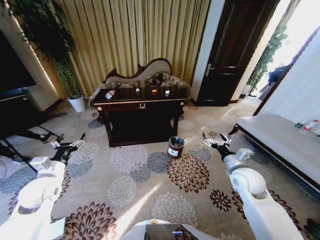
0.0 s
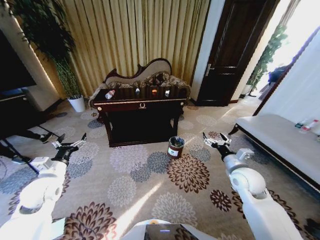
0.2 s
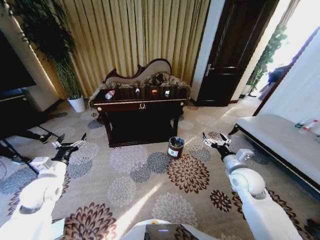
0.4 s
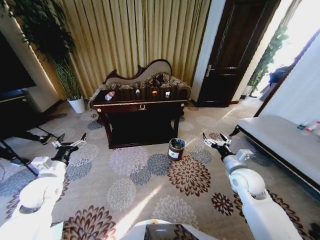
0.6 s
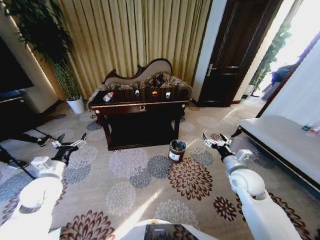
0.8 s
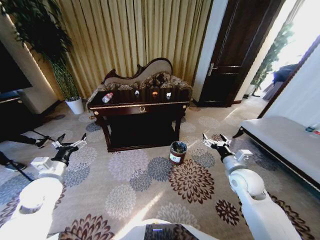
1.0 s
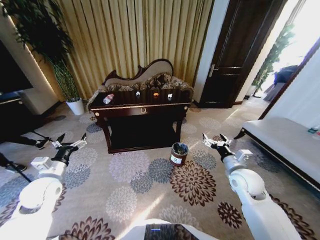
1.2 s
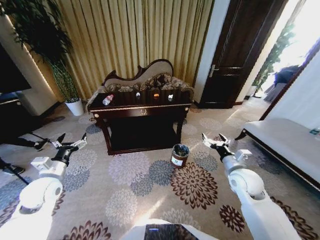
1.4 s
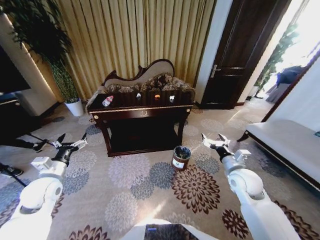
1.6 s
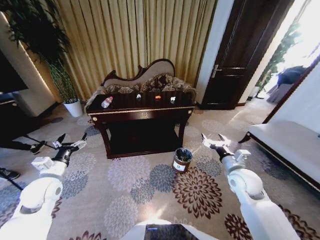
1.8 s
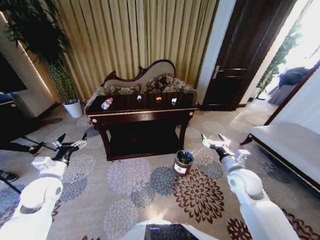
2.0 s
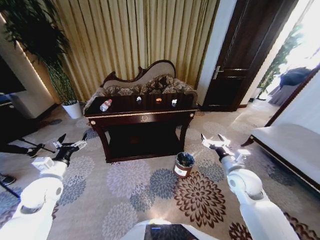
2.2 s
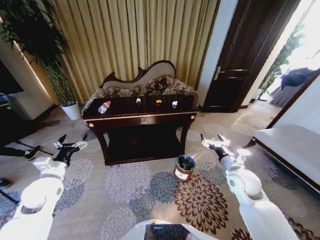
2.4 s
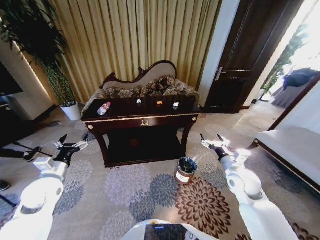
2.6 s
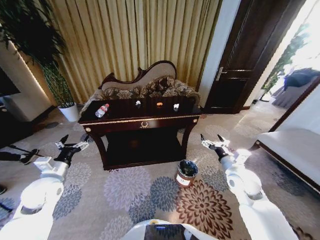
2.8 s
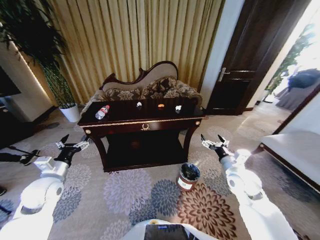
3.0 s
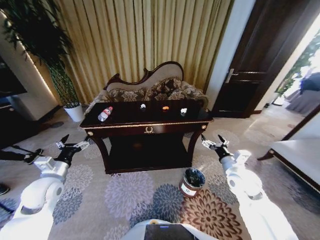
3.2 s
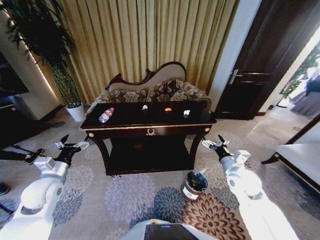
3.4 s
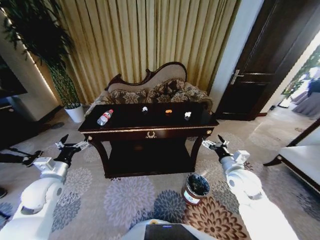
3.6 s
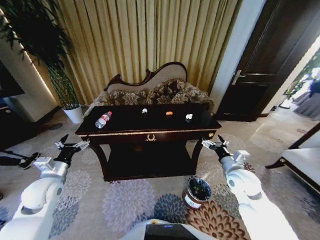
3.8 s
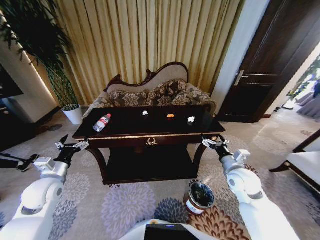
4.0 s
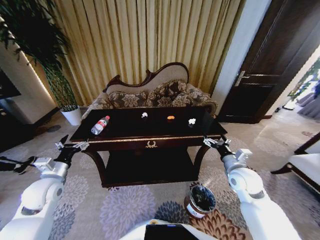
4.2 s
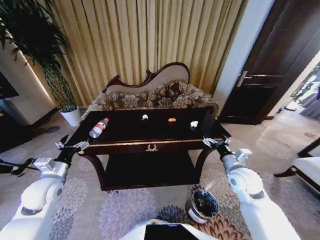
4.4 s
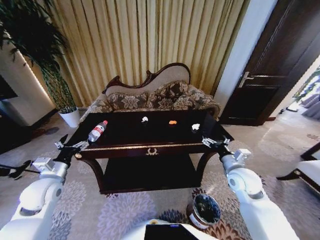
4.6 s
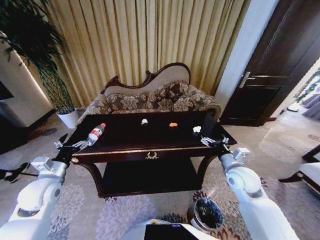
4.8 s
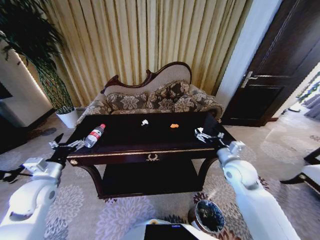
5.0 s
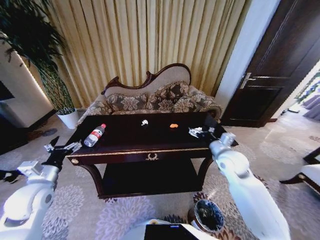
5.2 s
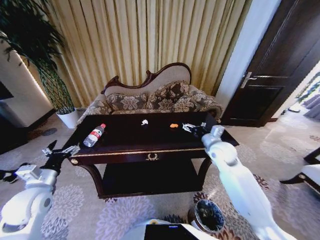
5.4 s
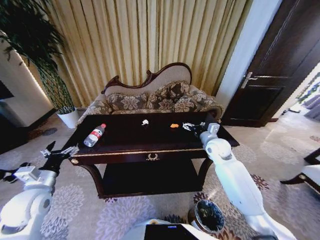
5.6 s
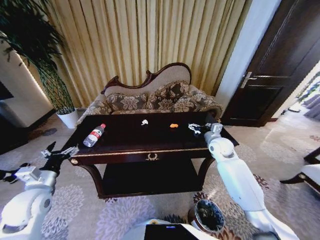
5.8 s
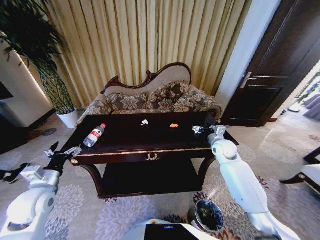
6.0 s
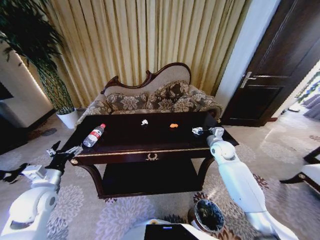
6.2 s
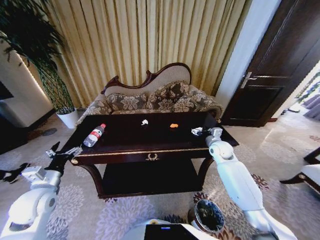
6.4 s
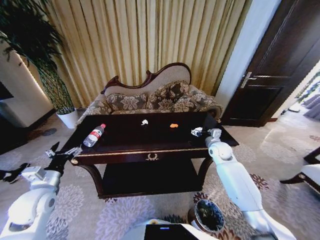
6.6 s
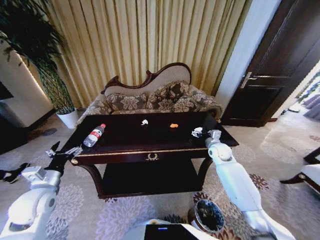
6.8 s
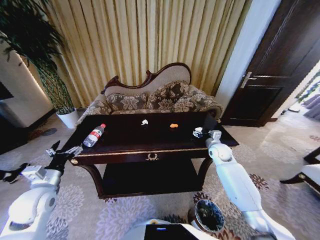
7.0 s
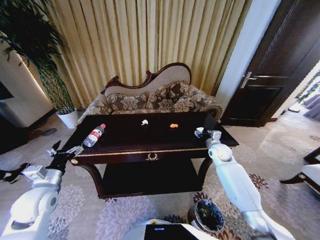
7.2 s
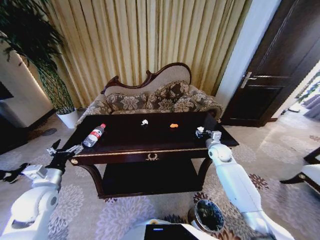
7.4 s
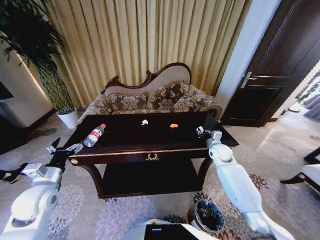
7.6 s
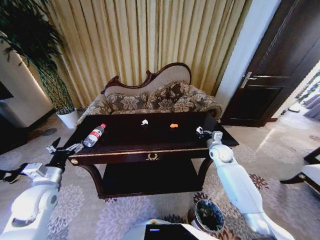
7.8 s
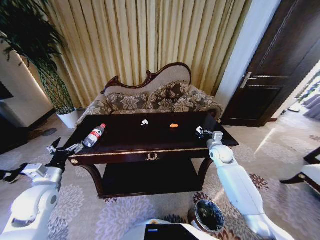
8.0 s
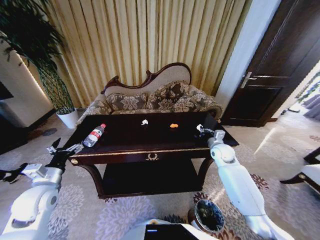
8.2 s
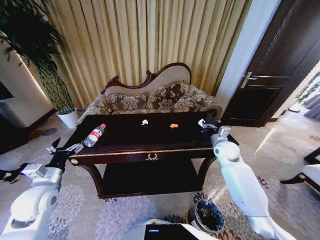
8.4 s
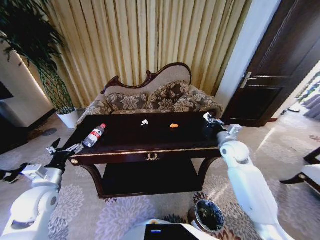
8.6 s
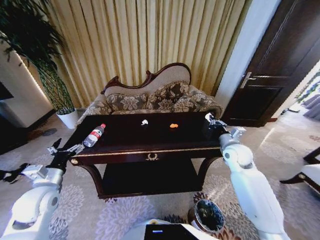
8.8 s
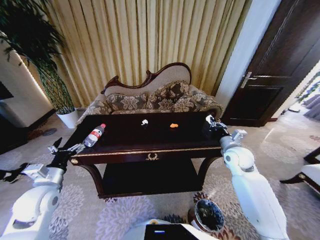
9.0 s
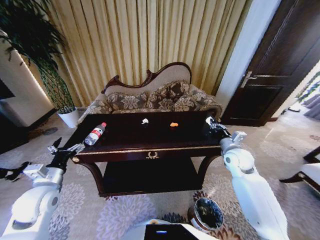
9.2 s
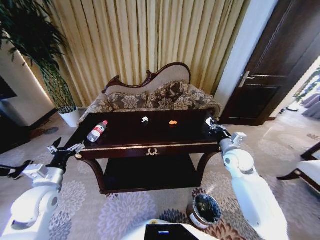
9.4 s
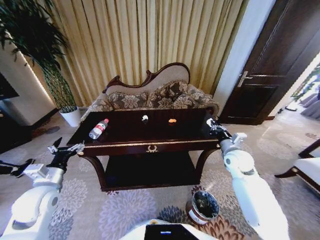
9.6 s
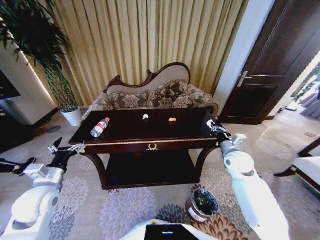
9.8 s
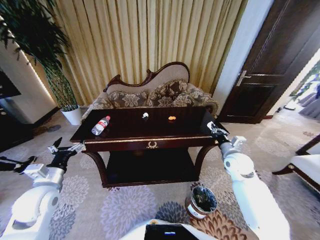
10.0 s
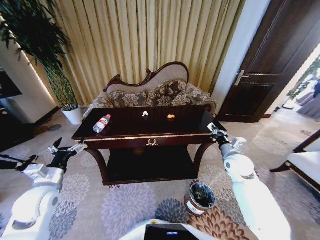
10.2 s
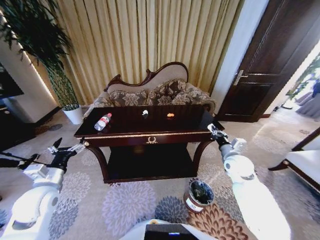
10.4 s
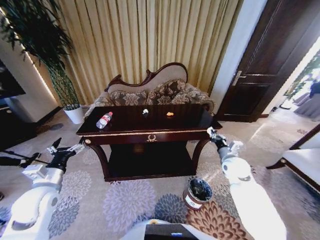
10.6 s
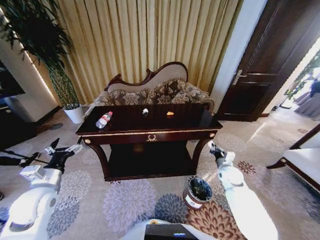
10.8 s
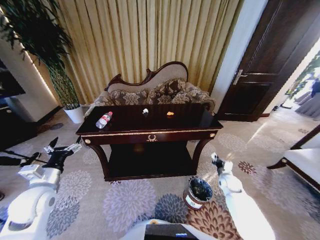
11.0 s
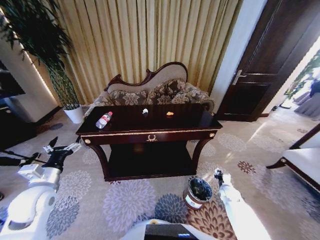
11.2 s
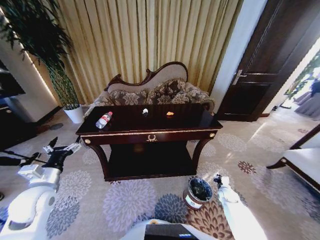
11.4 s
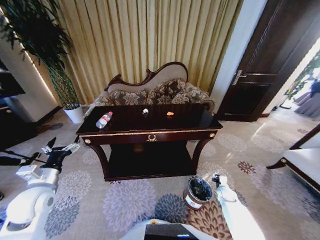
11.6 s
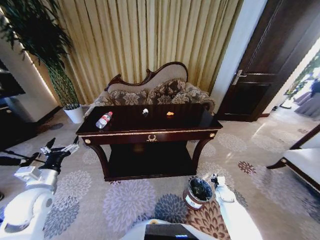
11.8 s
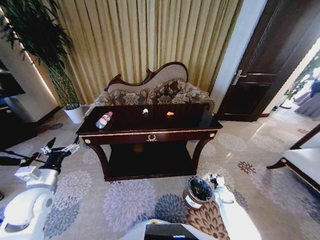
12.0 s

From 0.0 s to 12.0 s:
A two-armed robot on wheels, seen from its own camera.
Task of the whole recording: Move to the front of the table and place the trash on the table into the trash bin.
From 4.4 s to 6.0 s: The right gripper heads forward, covering some 15 cm.
From 6.0 s to 7.6 s: The right gripper closes.
From 7.6 s to 9.0 s: The right gripper moves backward and upward, roughly 10 cm.
From 10.4 s to 12.0 s: The right gripper moves downward, about 30 cm.

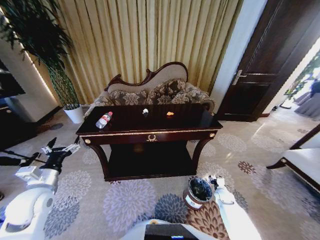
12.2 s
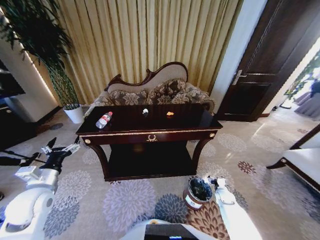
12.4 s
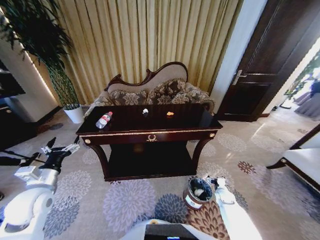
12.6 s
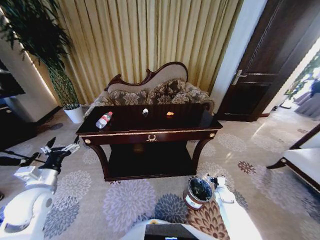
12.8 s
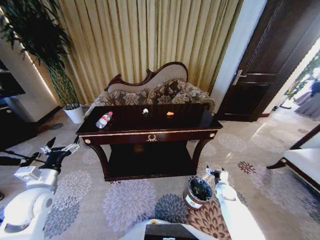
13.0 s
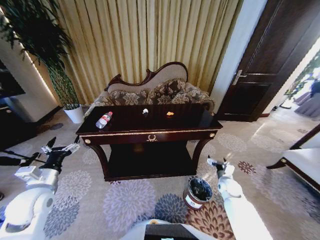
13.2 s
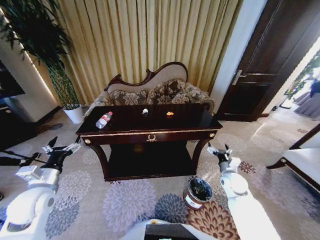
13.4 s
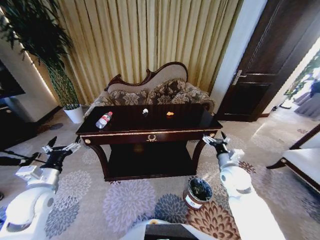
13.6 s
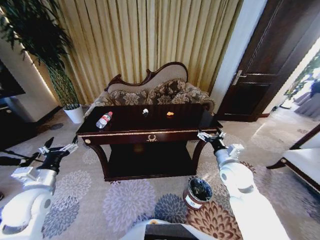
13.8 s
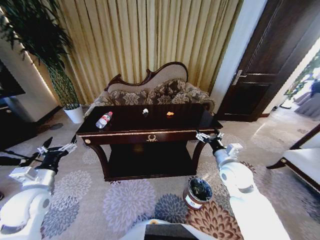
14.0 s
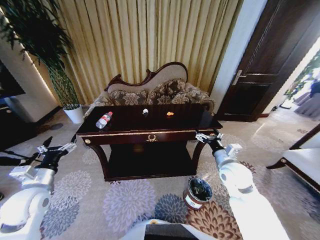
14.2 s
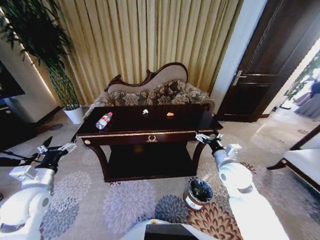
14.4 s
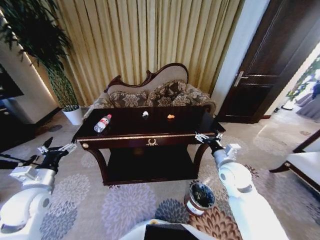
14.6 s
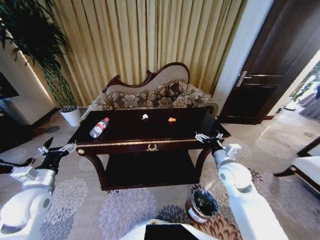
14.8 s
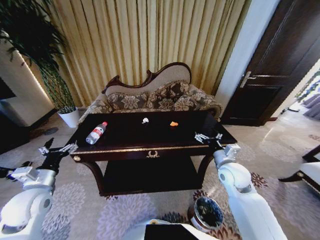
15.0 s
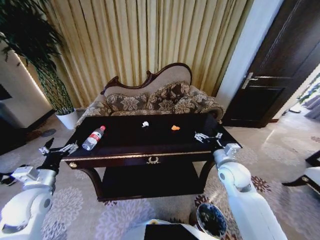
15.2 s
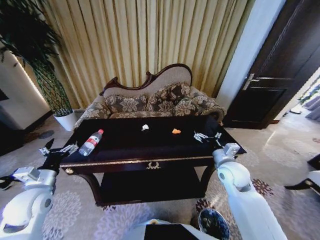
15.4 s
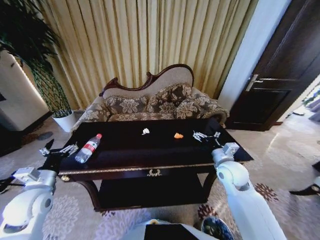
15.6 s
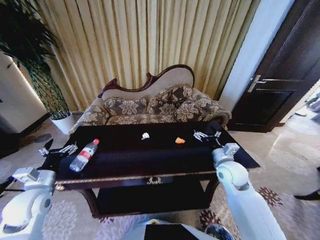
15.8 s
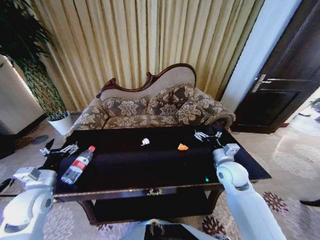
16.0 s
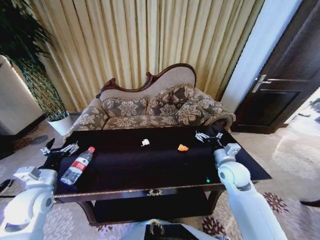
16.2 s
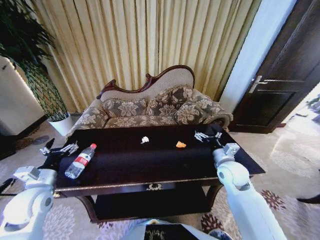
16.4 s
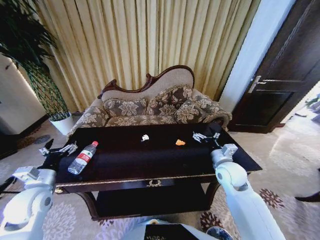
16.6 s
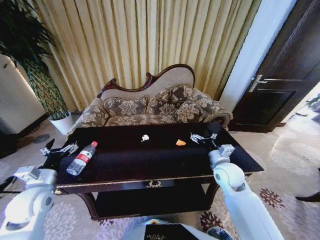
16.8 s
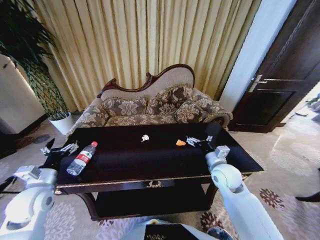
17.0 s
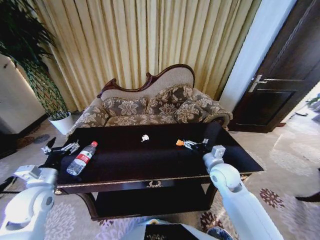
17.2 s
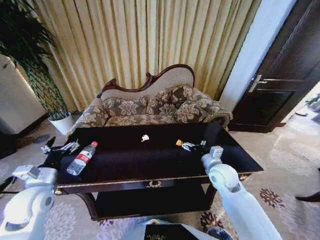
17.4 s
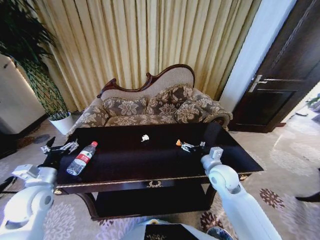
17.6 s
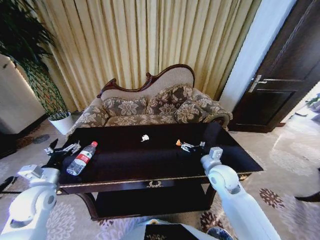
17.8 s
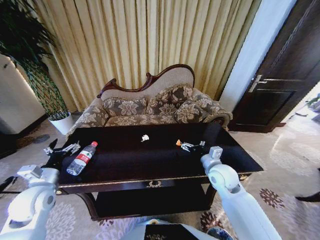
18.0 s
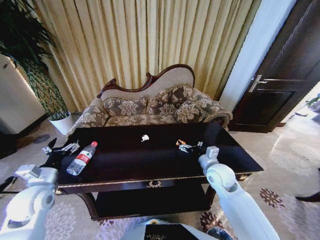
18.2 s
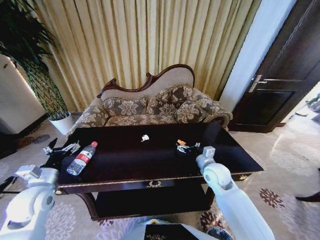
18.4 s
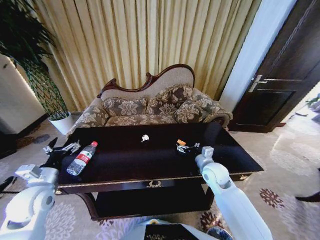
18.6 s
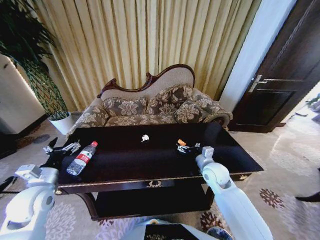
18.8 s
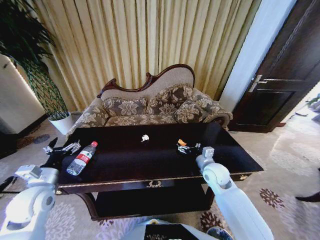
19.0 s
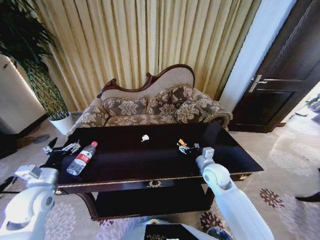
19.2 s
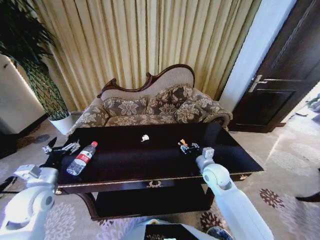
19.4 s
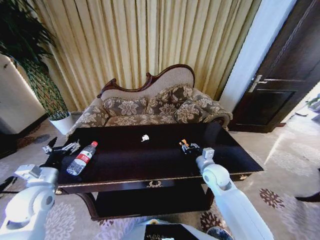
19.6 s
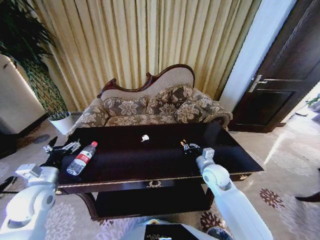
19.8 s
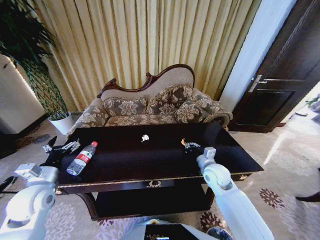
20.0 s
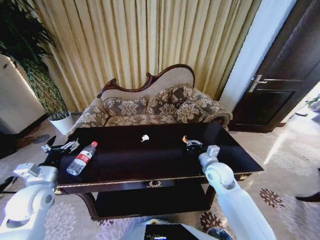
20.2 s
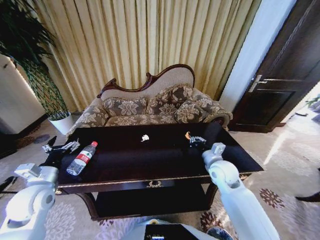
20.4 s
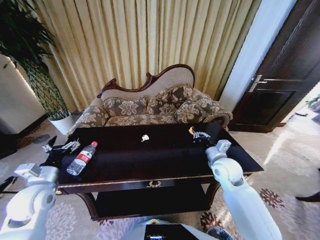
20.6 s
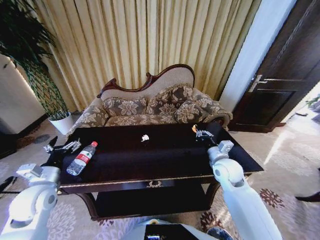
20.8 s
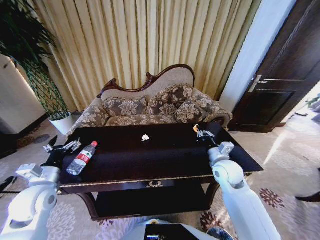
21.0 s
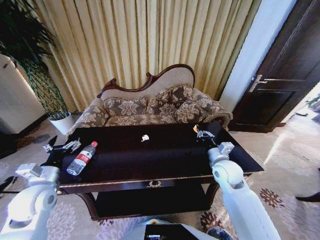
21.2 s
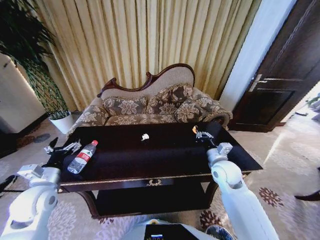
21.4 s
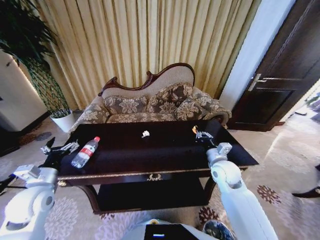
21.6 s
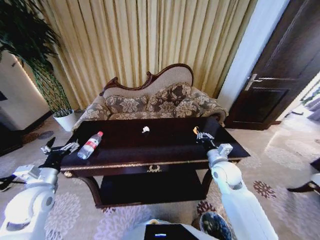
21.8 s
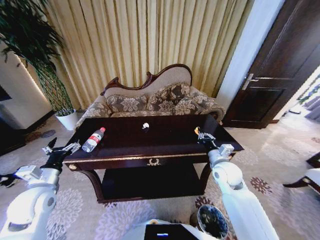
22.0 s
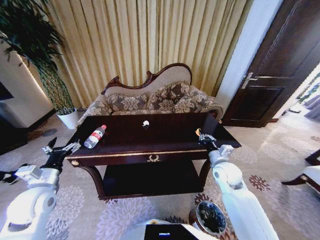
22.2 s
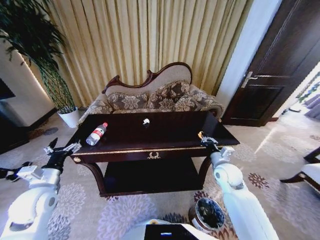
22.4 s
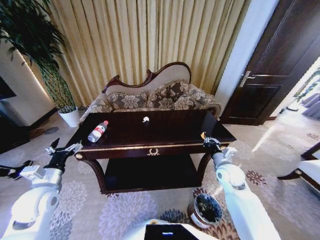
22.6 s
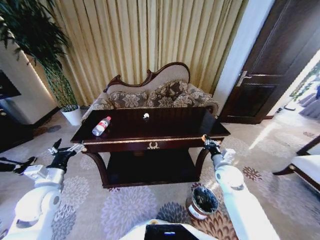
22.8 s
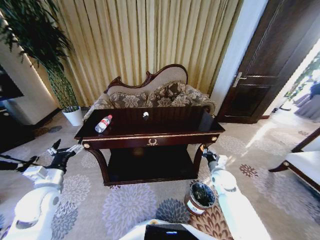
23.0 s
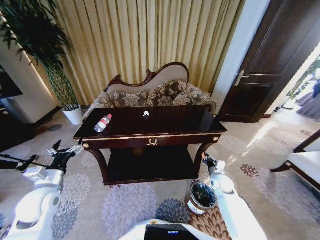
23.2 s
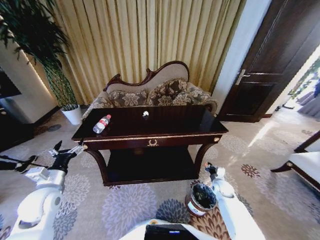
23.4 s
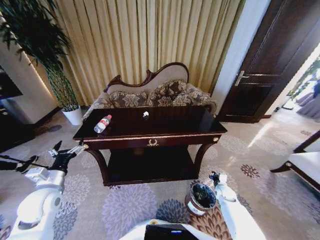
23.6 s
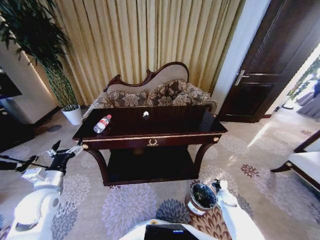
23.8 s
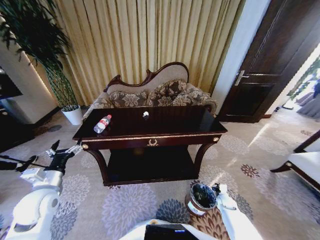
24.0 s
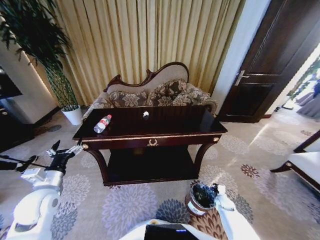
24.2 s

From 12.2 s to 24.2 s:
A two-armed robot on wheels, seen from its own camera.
Task of the whole recording: Move to the front of the table and place the trash on the table into the trash bin.
From 12.2 s to 13.8 s: The right gripper is displaced upward by about 30 cm, and opens.
From 16.6 s to 18.2 s: The grippers stay close to where they were, moving slightly.
From 18.2 s to 19.8 s: The right gripper closes.
From 19.8 s to 21.2 s: The right gripper moves approximately 5 cm.
From 21.2 s to 22.6 s: The right gripper ends up about 5 cm from where it was.
From 22.6 s to 24.2 s: The right gripper moves downward, roughly 30 cm.
